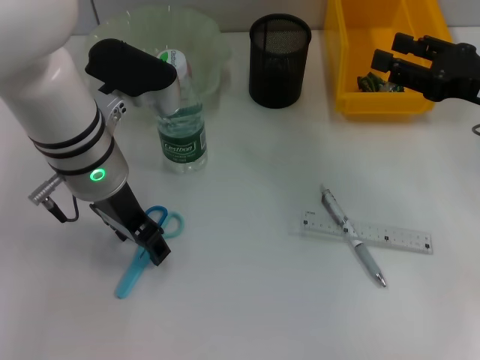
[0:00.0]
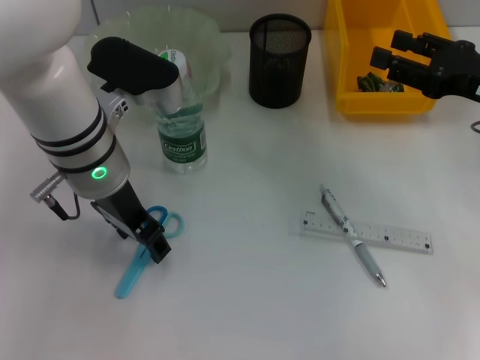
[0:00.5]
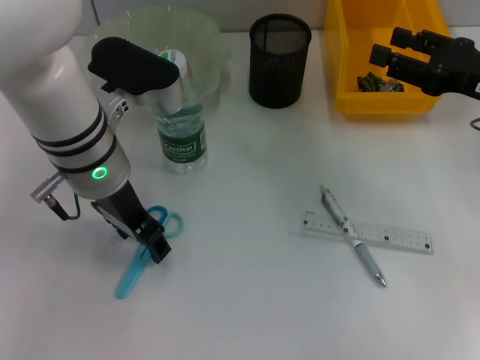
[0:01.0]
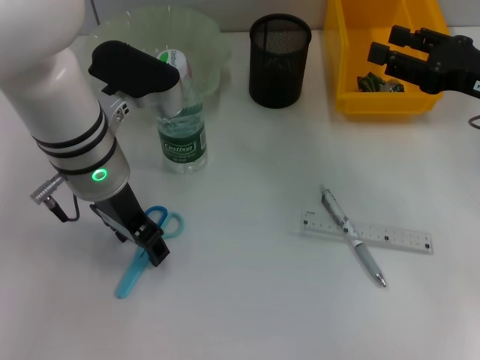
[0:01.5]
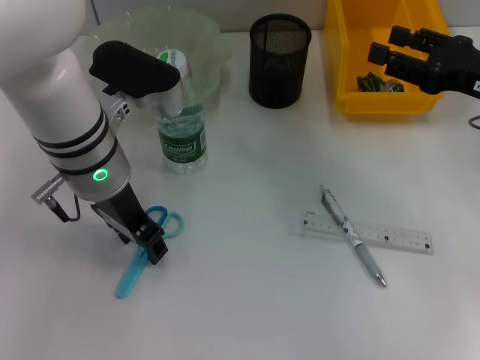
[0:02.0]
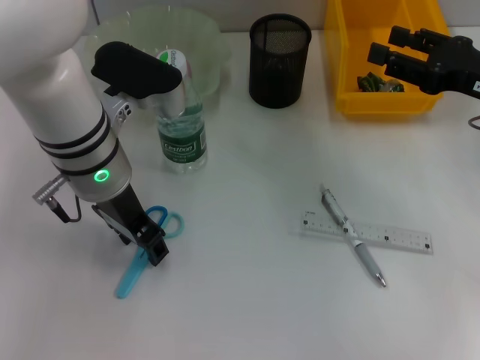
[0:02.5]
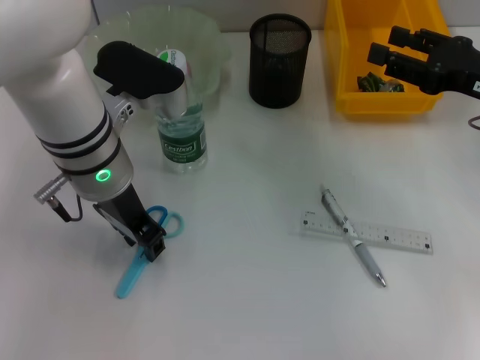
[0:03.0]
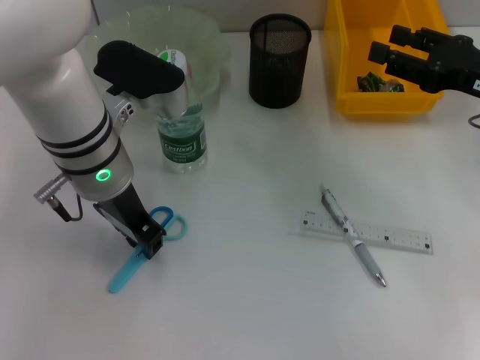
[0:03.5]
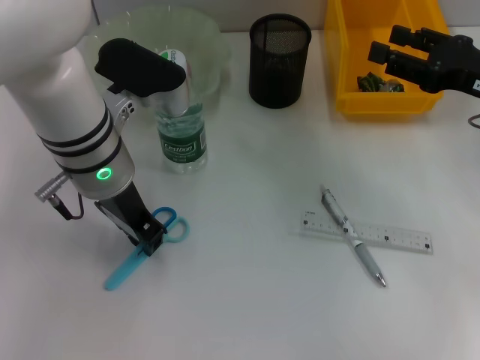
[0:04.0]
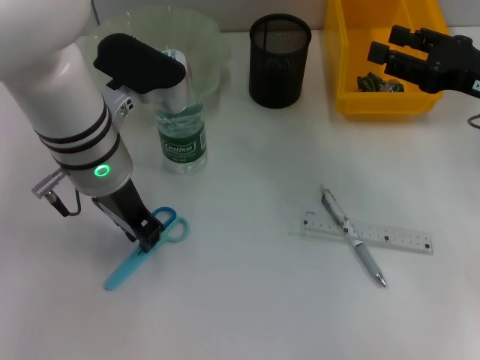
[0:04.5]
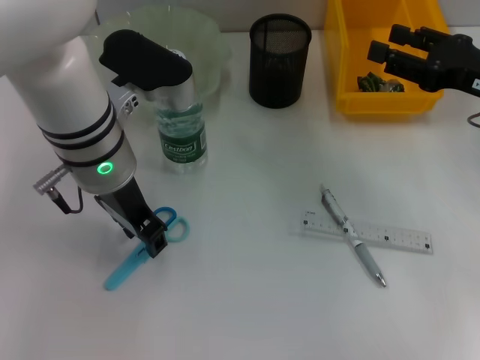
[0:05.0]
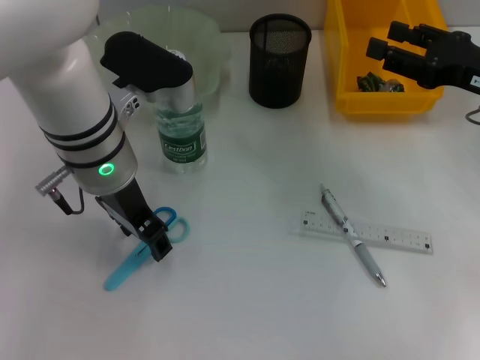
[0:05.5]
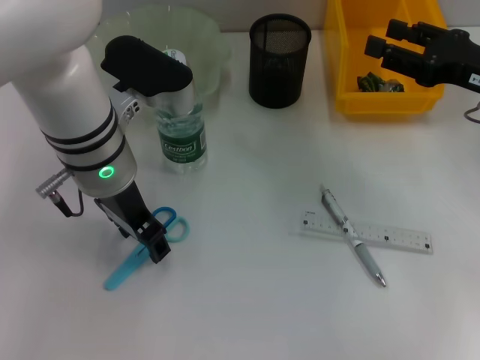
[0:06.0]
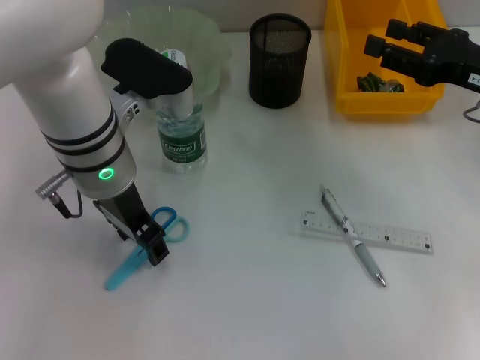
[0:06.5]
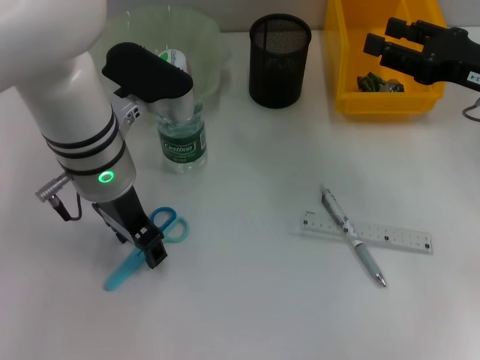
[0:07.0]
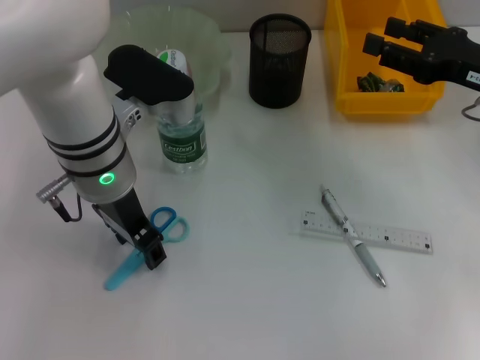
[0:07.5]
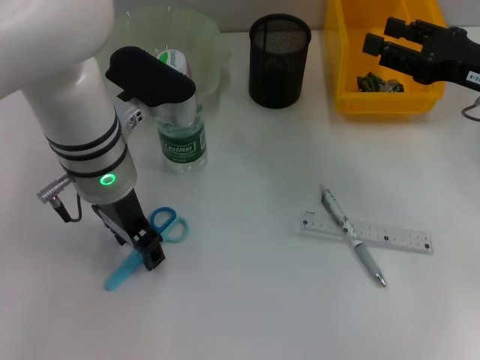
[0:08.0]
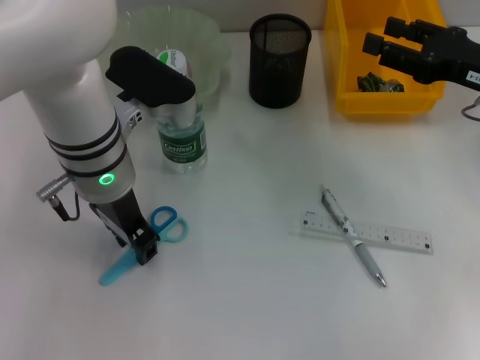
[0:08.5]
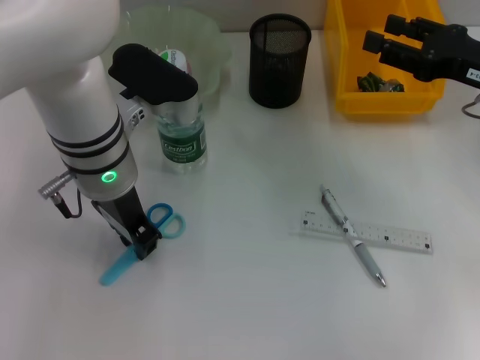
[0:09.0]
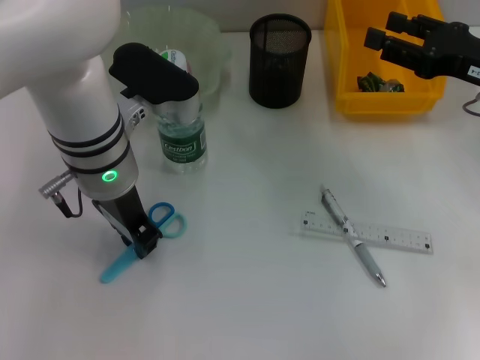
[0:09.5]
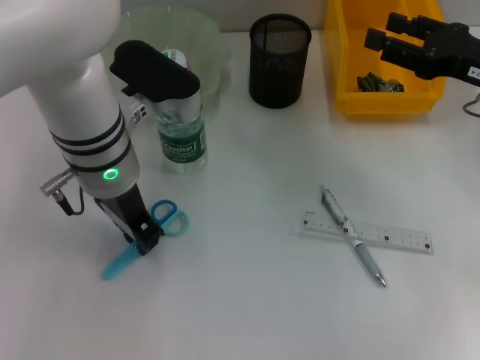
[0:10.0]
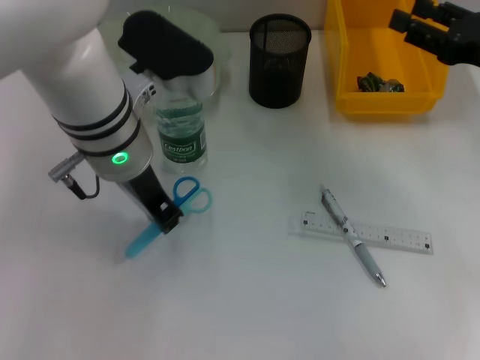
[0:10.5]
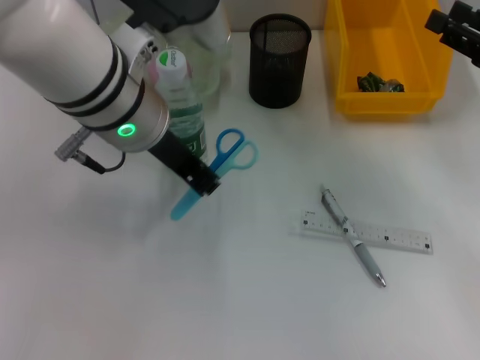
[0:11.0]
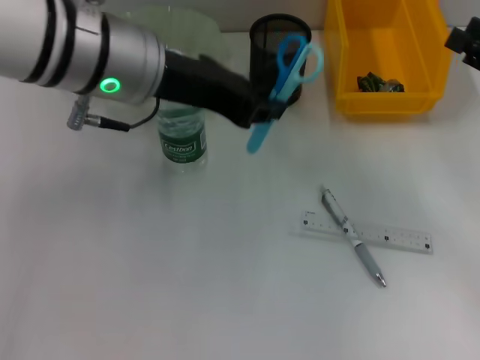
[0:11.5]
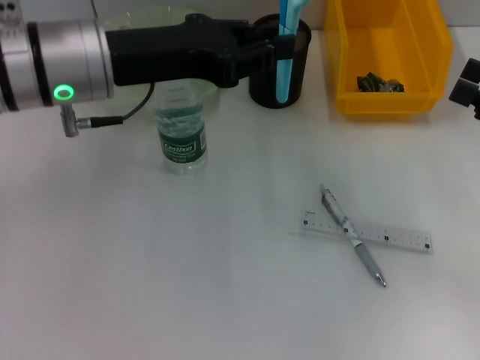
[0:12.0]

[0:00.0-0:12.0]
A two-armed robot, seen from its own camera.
Step, 0.0 to 9.5 s: Grab the blue scissors with the left hand.
0.0 to 2.0 s: Both grippers stay put.
2.0 to 4.0 s: The left gripper closes up.
4.0 to 6.0 s: The left gripper opens its fingers.
6.0 to 8.0 s: Both grippers stay put.
8.0 to 10.0 s: The left gripper closes its fingers.
10.0 to 12.0 s: The left gripper shifts roughly 5 cm upward; the right gripper is displaced backward and to the right by about 10 cm.

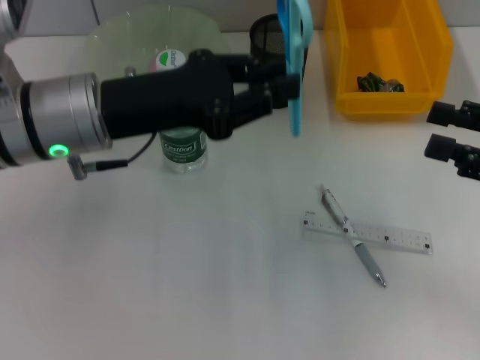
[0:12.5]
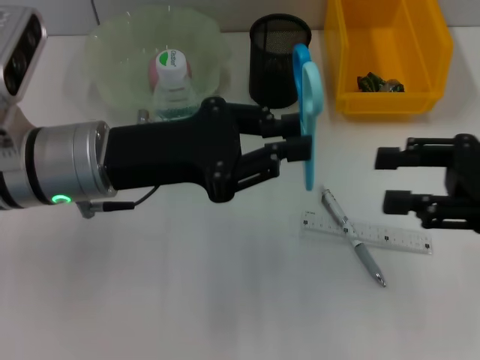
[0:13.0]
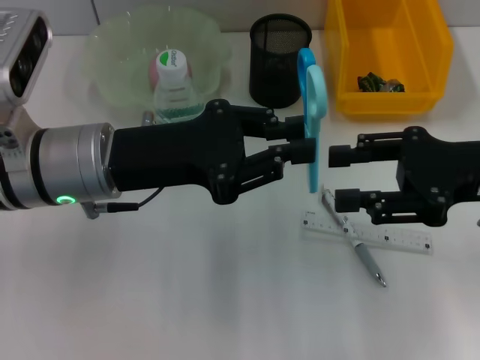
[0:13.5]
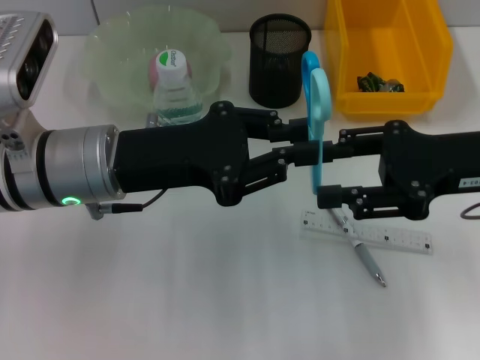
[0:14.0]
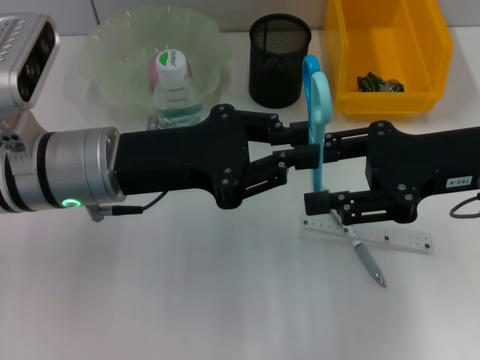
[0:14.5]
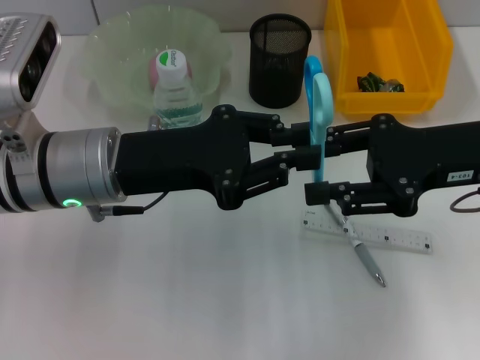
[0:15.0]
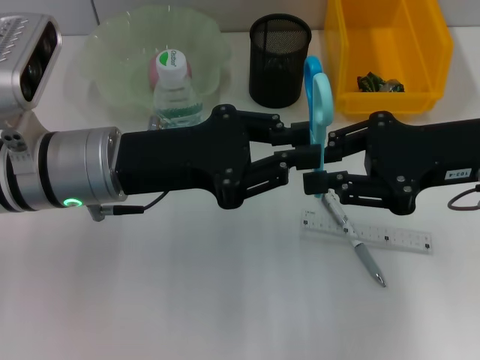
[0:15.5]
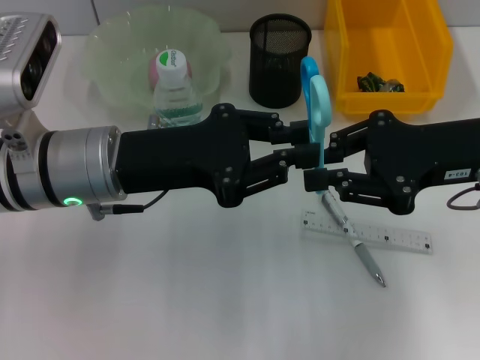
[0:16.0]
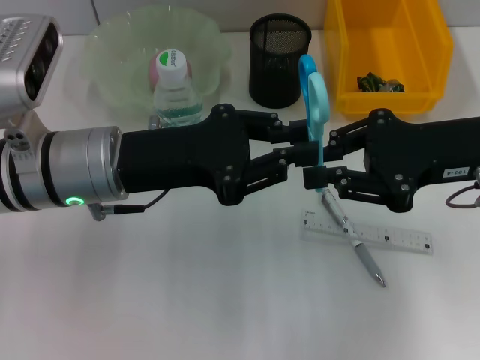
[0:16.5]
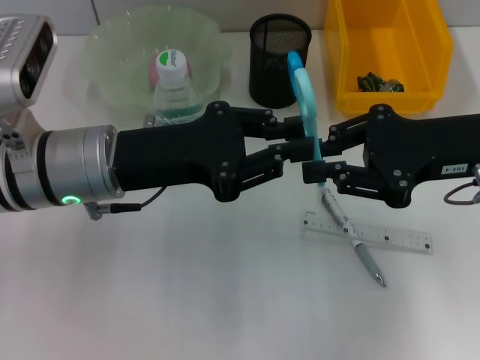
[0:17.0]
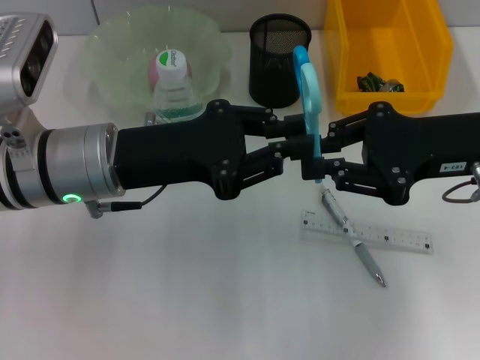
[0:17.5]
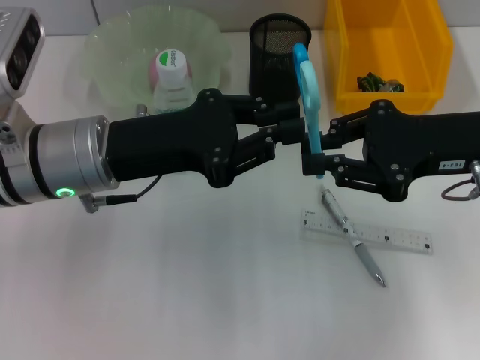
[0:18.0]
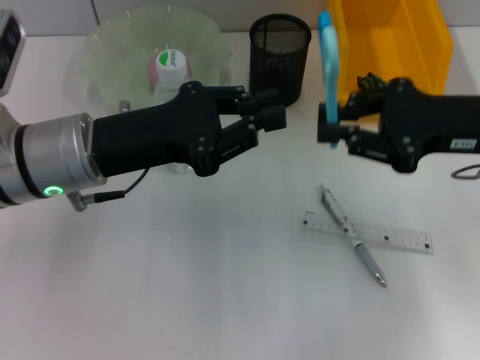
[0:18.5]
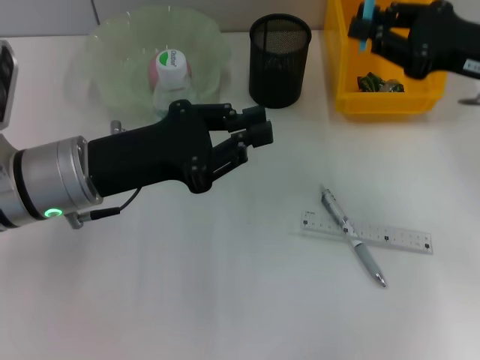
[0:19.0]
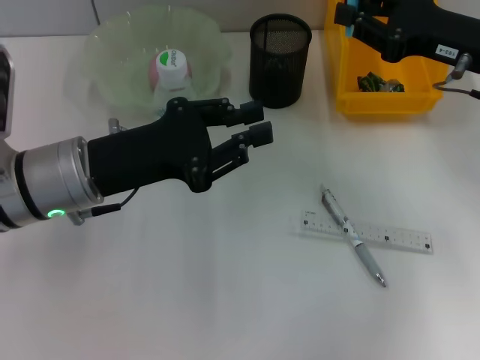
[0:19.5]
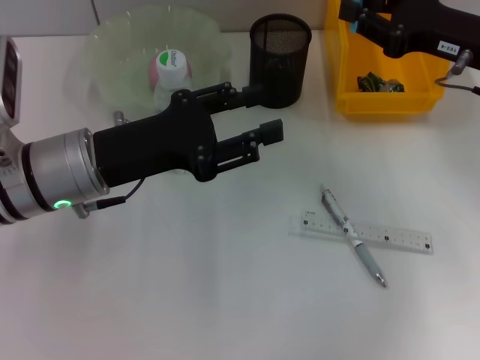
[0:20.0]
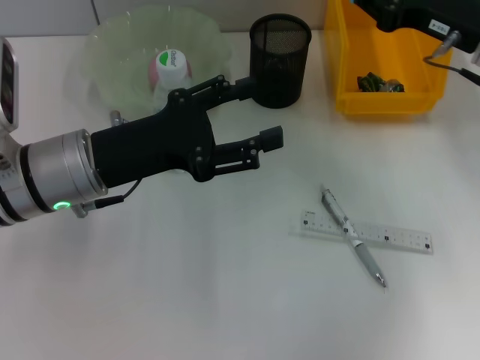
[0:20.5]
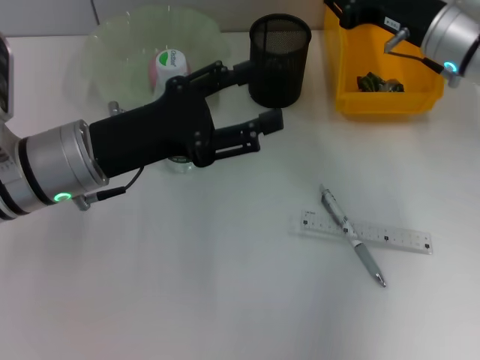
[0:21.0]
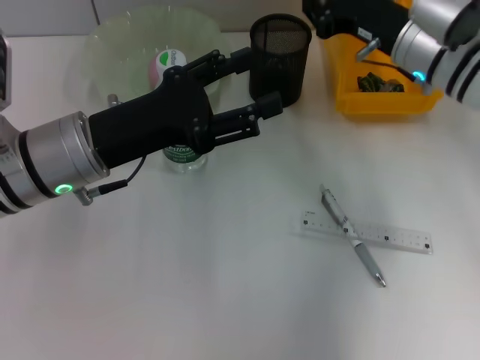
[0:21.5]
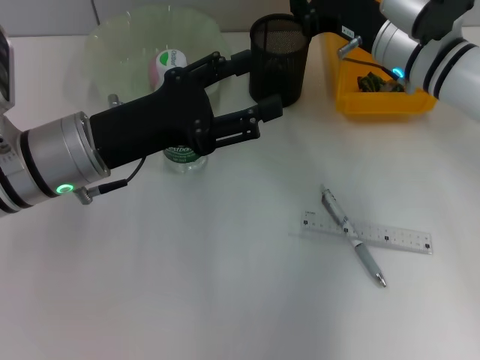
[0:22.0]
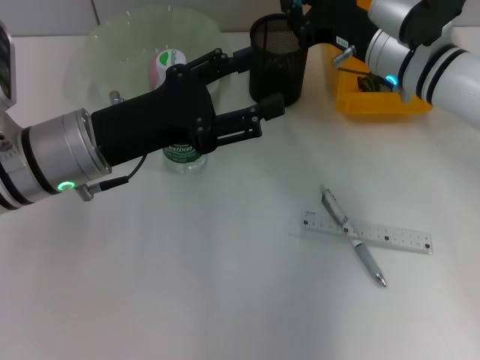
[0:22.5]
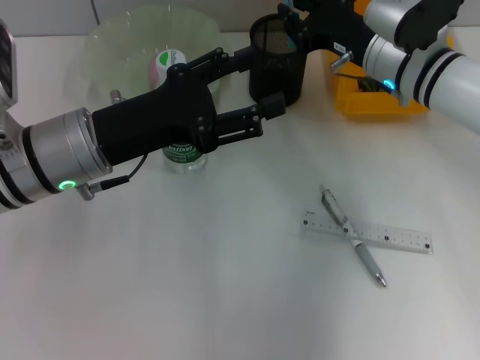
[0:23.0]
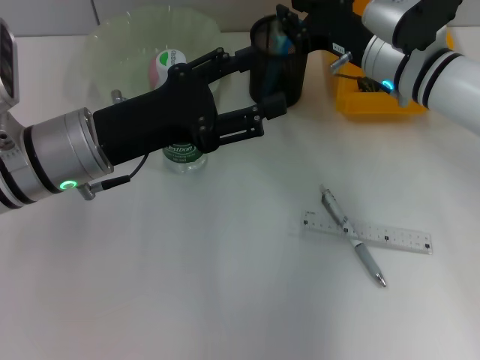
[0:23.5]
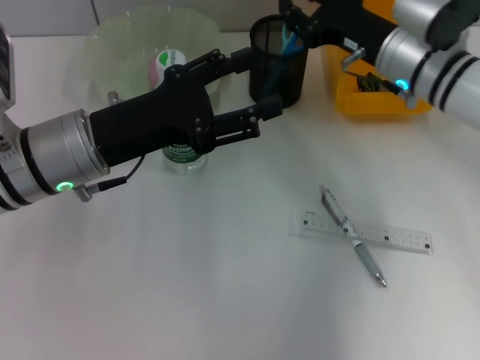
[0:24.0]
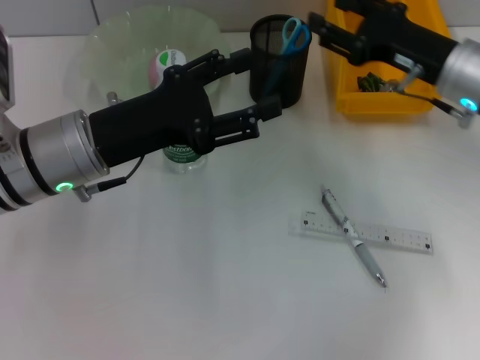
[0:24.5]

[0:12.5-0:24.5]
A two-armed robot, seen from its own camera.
Step, 12.5 to 18.5 s: Pass the blue scissors from the left hand to the right hand.
Step, 19.0 to 24.0 s: Place the blue scissors into the pen holder with the right hand.
12.5 to 14.5 s: The right gripper moves to the left, roughly 10 cm.
14.5 to 16.5 s: The right gripper closes.
18.5 to 20.5 s: The right gripper is displaced forward by roughly 5 cm; the left gripper opens.
20.5 to 22.5 s: The right gripper is displaced to the left by approximately 10 cm.
22.5 to 24.5 s: The right gripper shifts approximately 5 cm to the right, and opens.

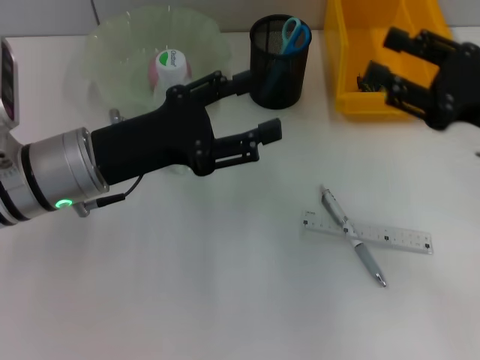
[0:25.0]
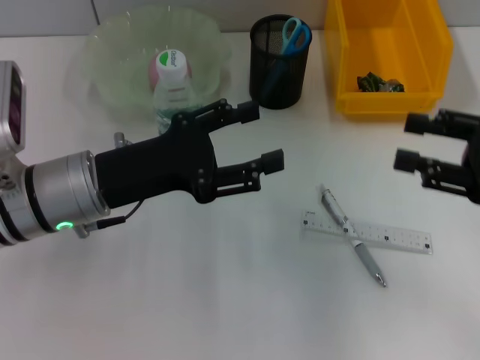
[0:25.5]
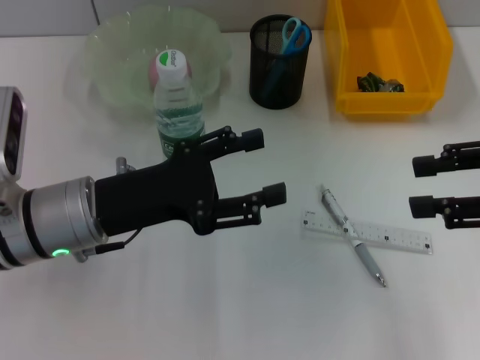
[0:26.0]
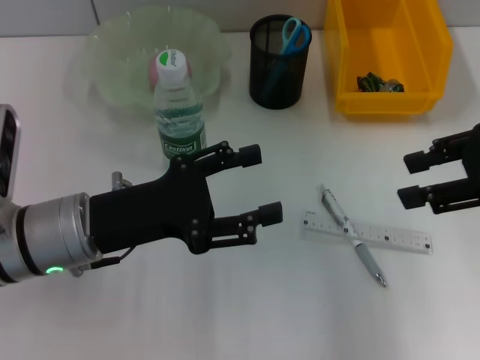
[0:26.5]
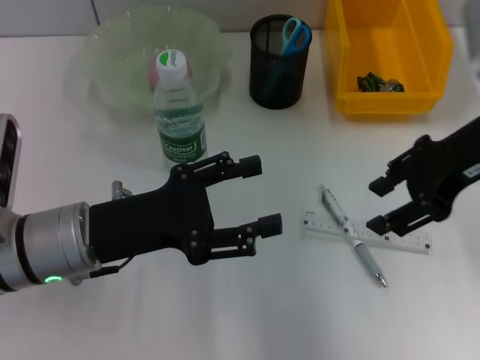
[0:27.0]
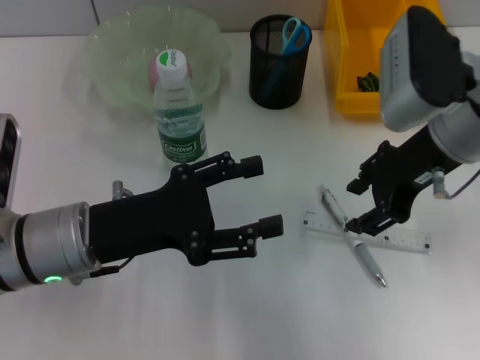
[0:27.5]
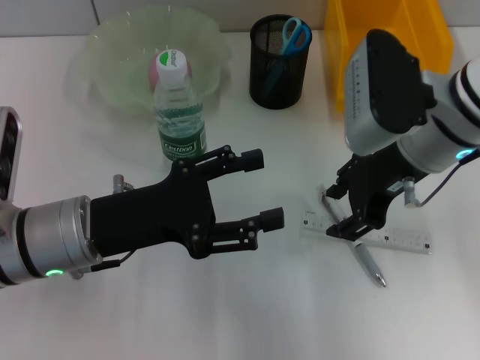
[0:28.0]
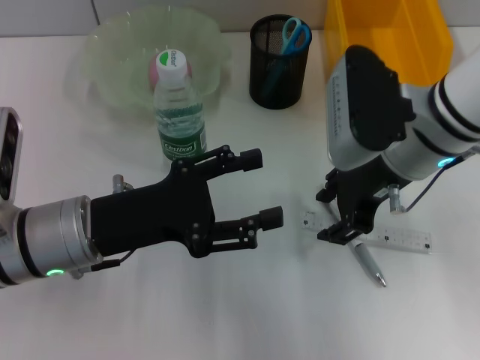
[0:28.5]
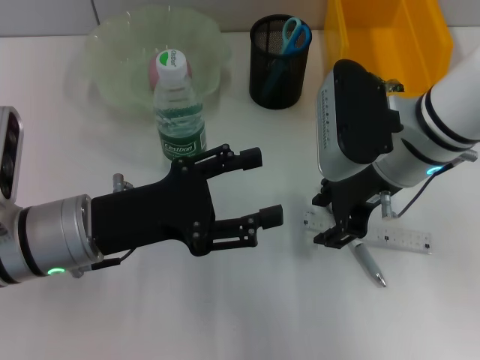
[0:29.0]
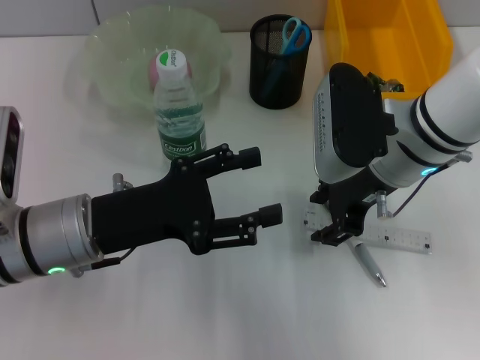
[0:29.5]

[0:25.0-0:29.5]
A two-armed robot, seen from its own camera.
25.0 to 27.0 s: The left gripper shifts by roughly 5 cm, while the right gripper is displaced upward and to the left by about 10 cm.
27.0 to 29.5 s: The right gripper is displaced to the left and downward by approximately 10 cm.
